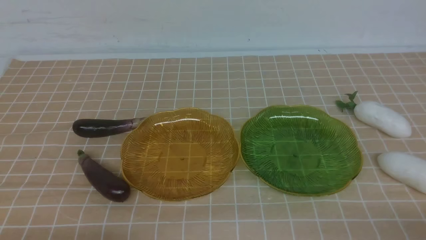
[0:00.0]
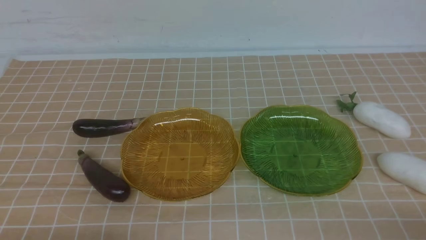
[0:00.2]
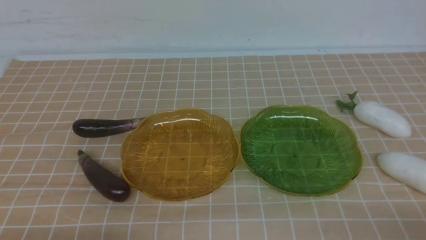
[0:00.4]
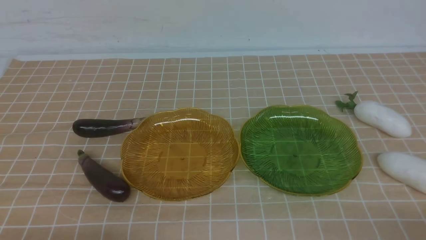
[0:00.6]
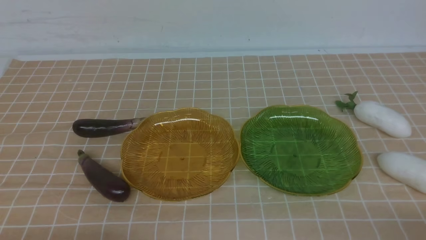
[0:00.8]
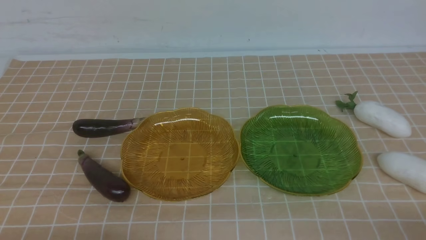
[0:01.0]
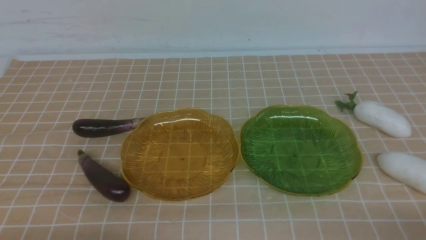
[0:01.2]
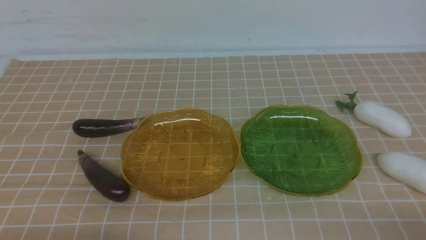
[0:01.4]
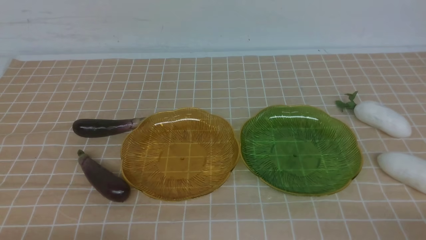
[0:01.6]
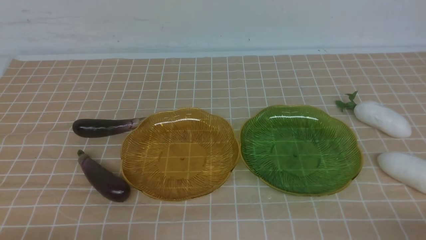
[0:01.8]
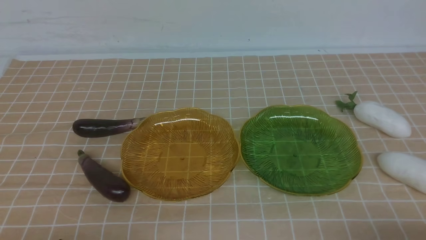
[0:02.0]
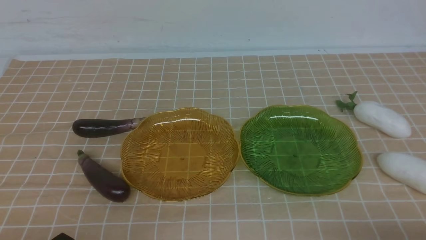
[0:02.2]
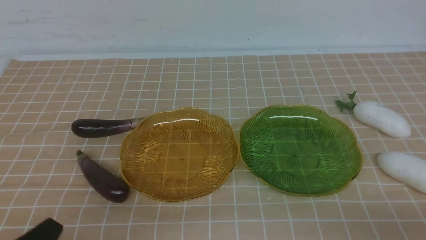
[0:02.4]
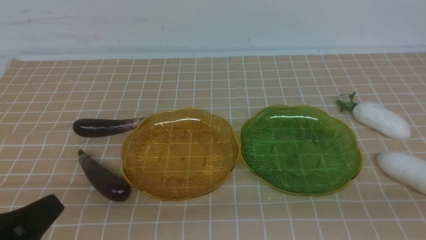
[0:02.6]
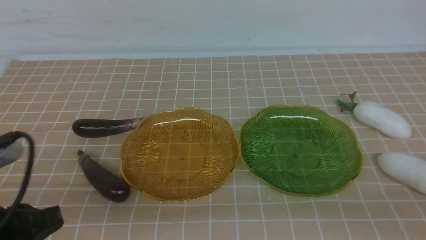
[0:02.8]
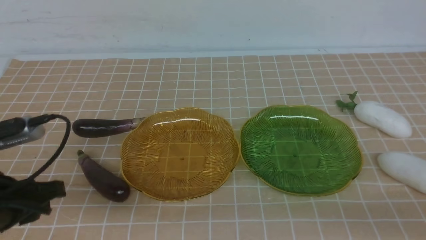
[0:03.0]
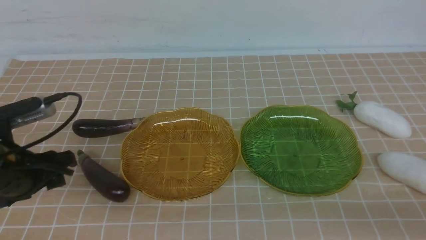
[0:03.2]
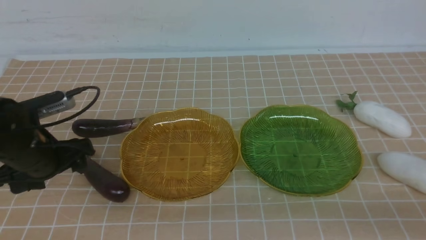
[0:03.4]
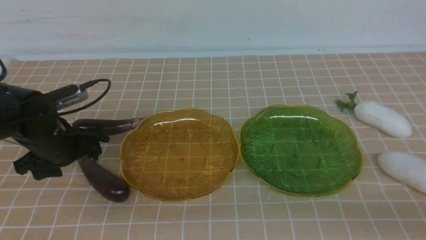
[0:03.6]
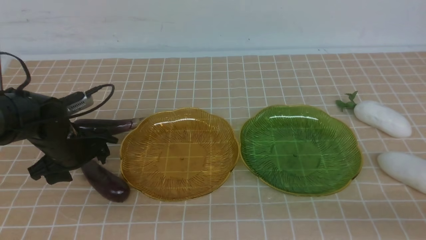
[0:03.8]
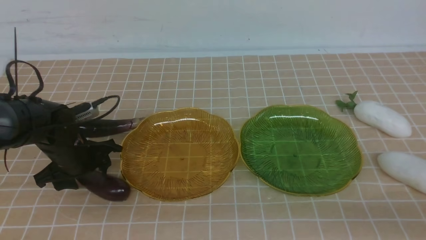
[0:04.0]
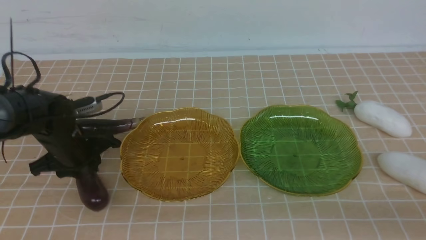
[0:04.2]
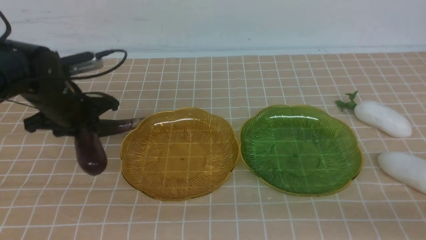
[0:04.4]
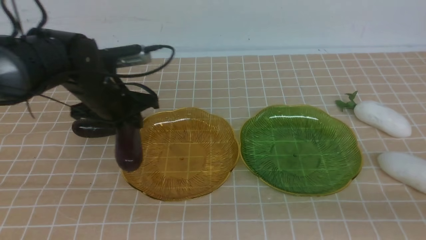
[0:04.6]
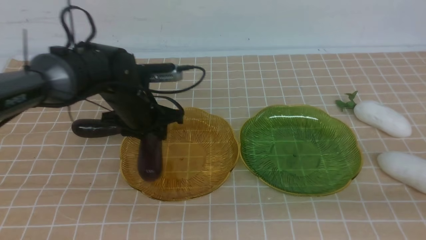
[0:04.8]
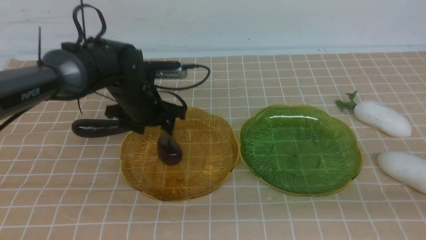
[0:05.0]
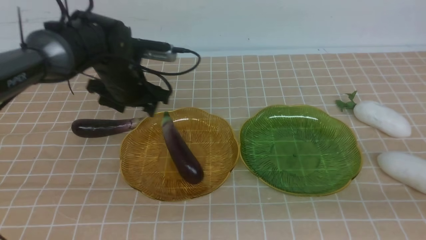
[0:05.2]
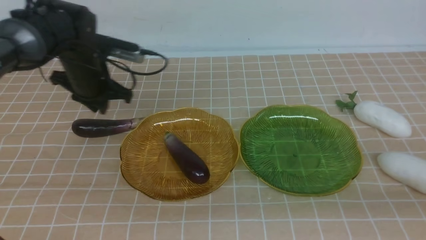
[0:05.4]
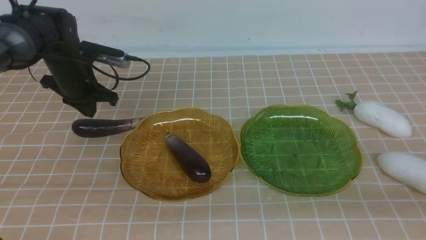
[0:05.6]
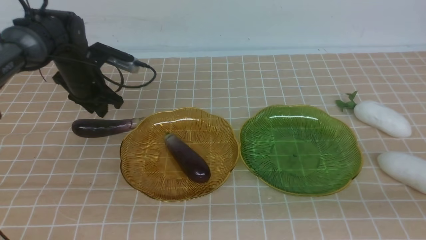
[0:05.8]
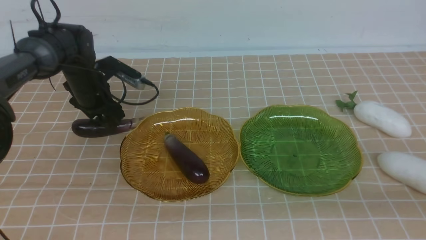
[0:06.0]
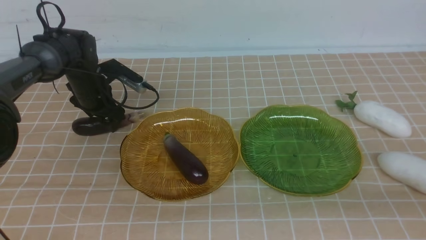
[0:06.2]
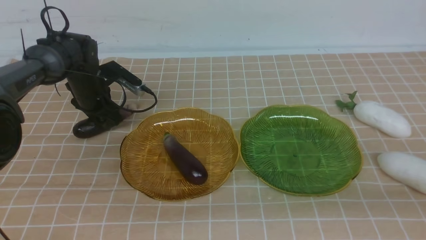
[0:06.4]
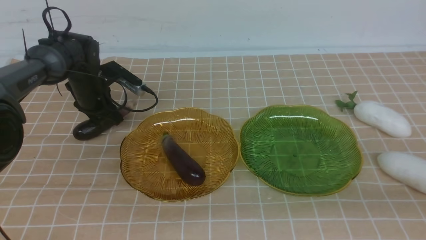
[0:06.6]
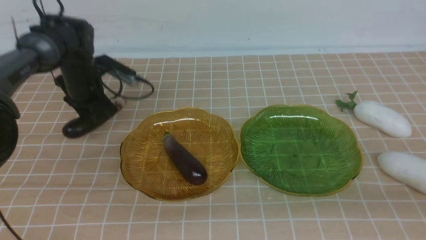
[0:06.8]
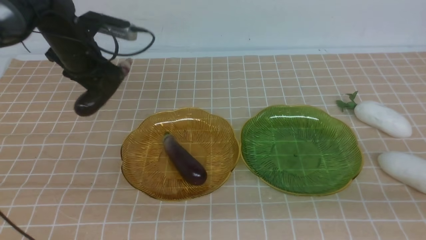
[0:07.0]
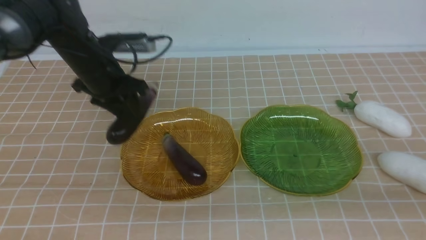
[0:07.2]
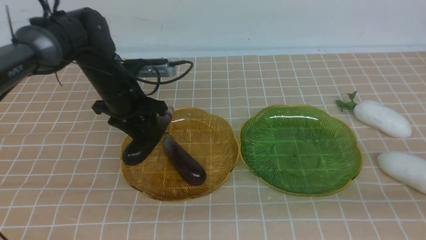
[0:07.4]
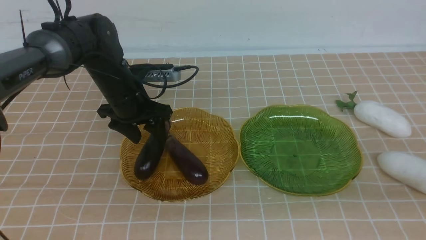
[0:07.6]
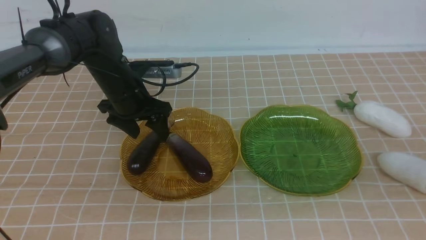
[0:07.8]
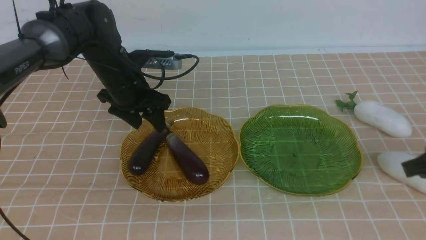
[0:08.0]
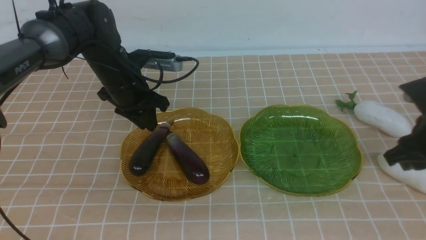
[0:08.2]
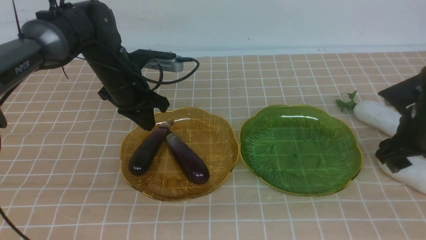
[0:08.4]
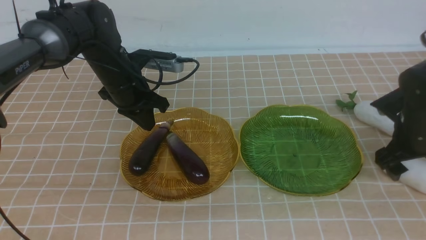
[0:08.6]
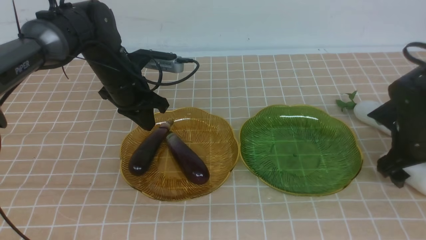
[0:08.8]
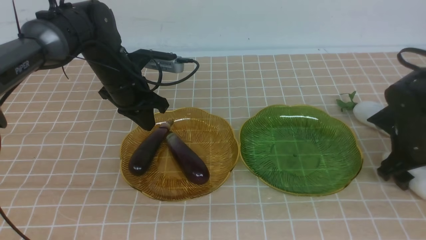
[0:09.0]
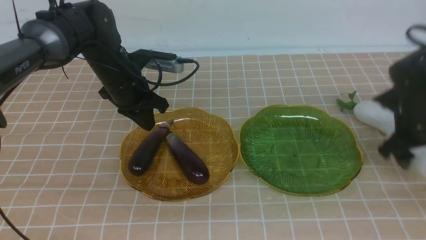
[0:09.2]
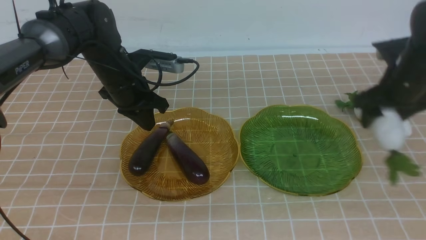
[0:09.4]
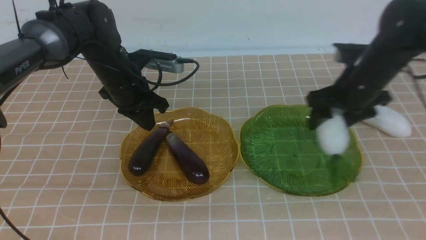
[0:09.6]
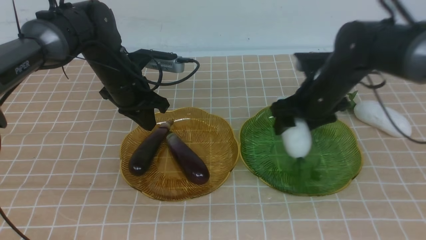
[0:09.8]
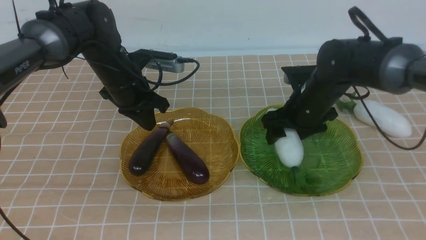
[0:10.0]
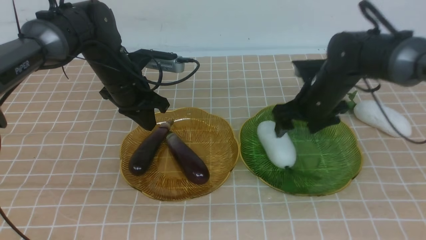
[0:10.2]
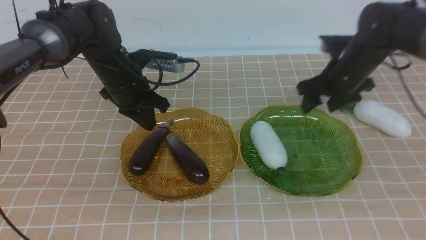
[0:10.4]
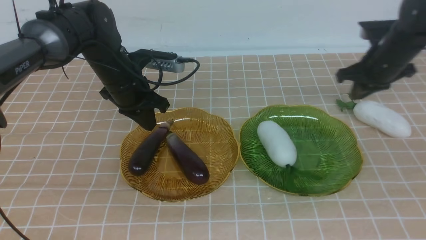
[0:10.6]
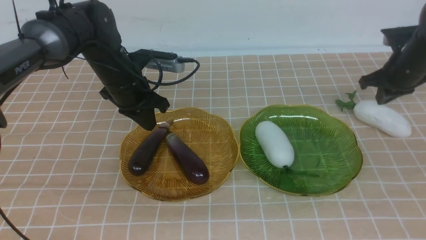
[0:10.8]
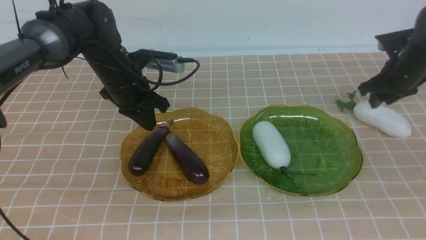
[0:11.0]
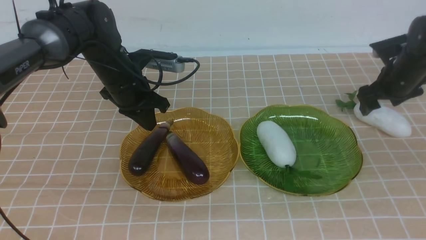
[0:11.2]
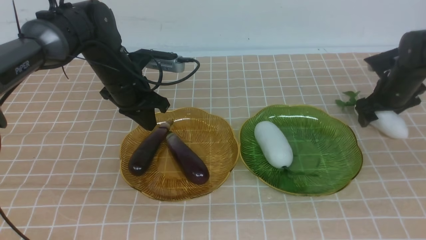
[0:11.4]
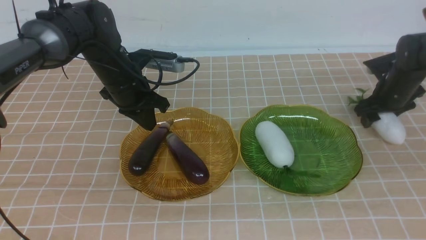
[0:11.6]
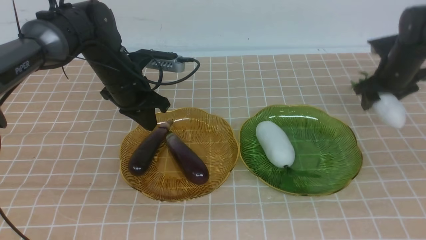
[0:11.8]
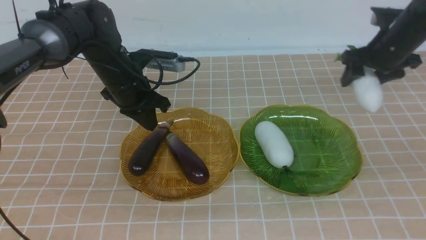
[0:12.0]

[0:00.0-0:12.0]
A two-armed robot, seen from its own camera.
Step, 0:00.0 to 0:07.8: use the left arm to grab an eggplant and put it into the left plate.
0:00.0 to 0:01.6: Both grippers stay about where they are.
0:01.6 to 0:03.0: The left gripper goes approximately 15 cm forward and upward.
0:03.0 to 0:04.4: The left gripper travels forward by some 20 cm, and opens and closes again.
0:04.4 to 0:06.0: The left gripper is displaced forward by about 10 cm, and opens up.
0:06.0 to 0:07.6: The left gripper is displaced to the right and backward by roughly 10 cm, and closes, then reopens.
0:07.6 to 0:09.0: The left gripper closes up. The right gripper shifts approximately 25 cm forward and downward, and opens up.
0:09.0 to 0:10.4: The right gripper travels to the left, forward and upward by approximately 15 cm.
0:10.4 to 0:12.0: The right gripper heads to the right, covering some 5 cm, and closes, then reopens.

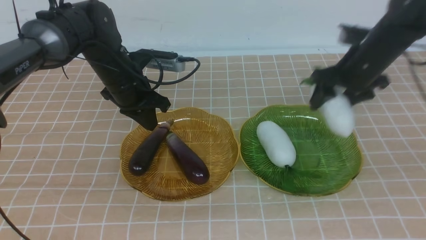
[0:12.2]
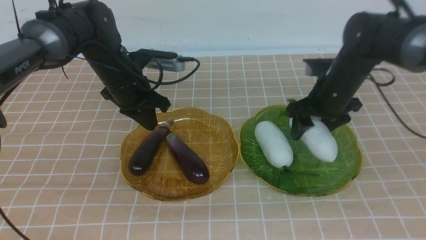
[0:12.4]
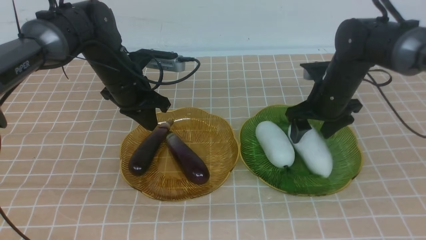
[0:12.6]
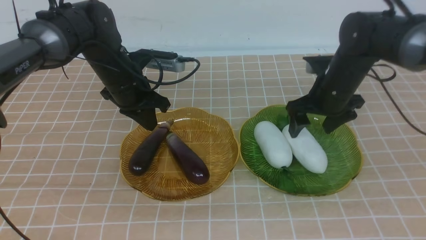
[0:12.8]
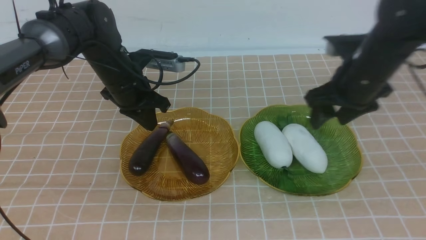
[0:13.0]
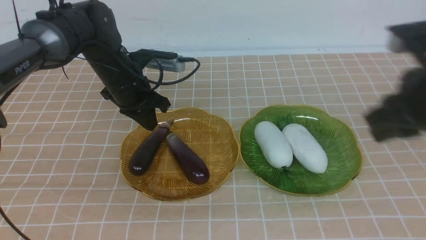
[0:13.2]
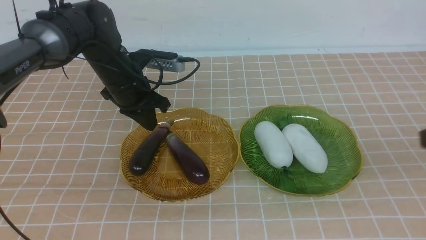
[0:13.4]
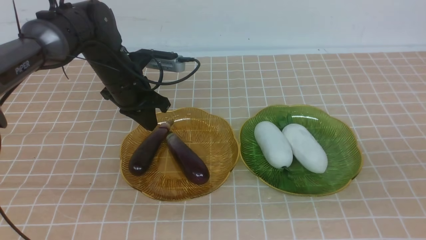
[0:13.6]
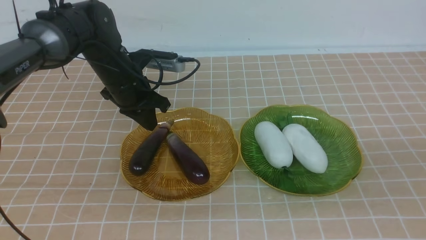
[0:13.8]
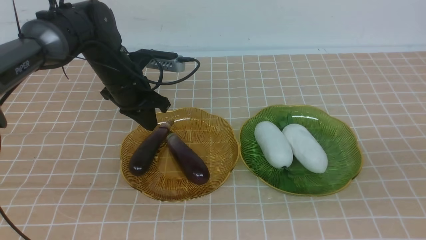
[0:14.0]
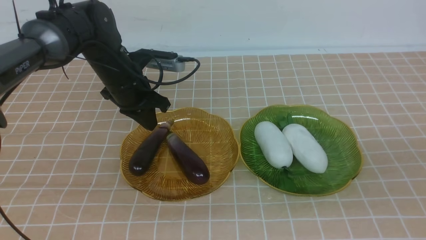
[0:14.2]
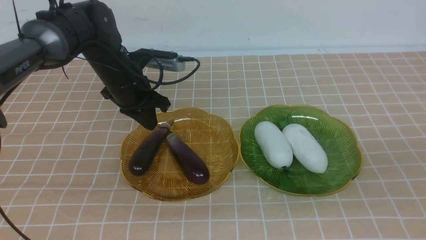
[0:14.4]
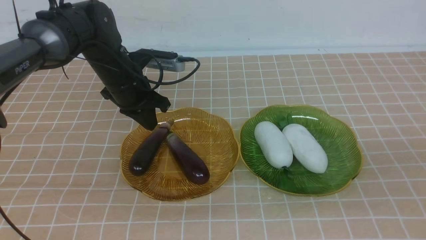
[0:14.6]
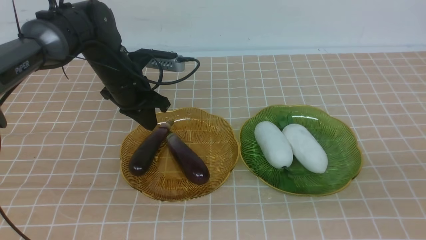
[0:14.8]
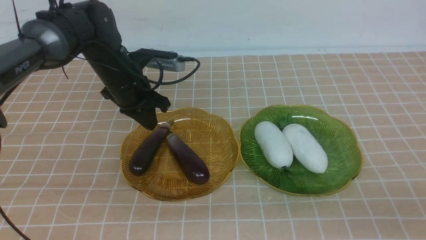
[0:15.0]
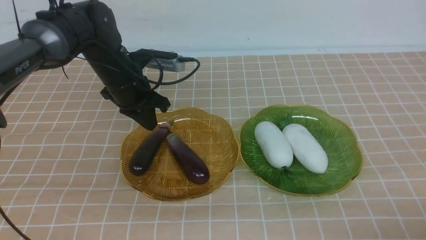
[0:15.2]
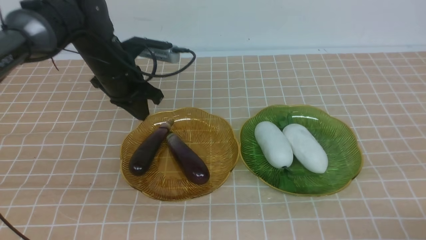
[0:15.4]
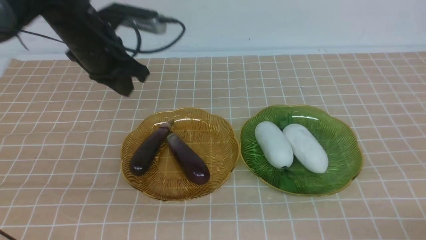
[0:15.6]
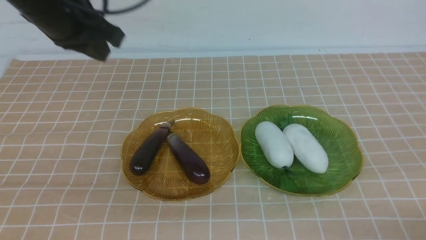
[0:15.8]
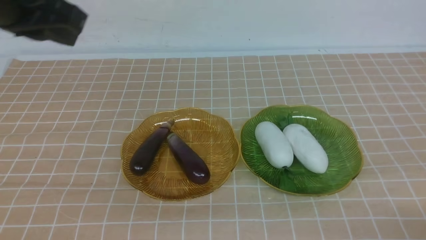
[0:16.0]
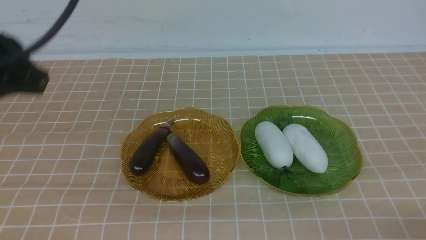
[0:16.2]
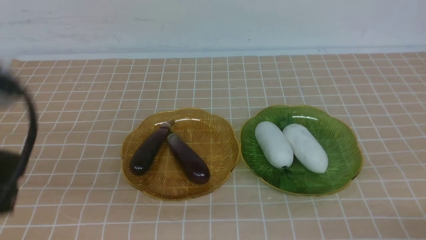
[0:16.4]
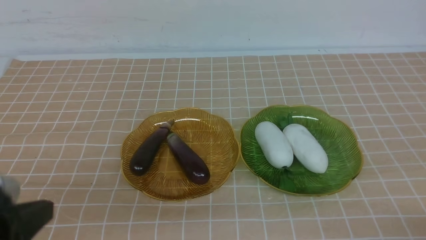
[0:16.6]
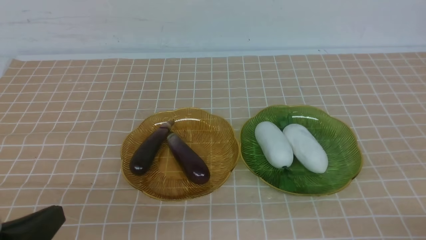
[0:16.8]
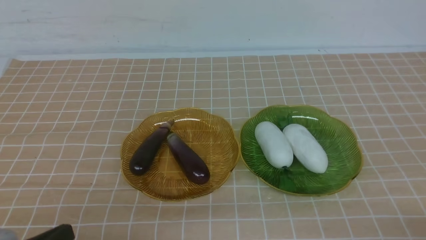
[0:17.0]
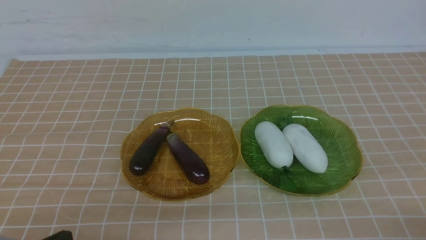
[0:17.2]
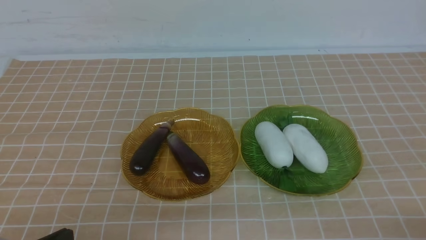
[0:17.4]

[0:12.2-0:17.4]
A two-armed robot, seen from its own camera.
0:12.2 to 0:14.0: The right gripper is displaced backward by approximately 35 cm, and closes its fingers.
0:14.0 to 0:15.6: The right gripper travels downward by some 15 cm, while the left gripper heads upward and backward, covering approximately 15 cm.
0:15.6 to 0:17.4: The left gripper travels backward and downward by roughly 35 cm.
